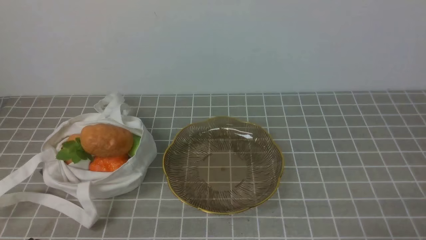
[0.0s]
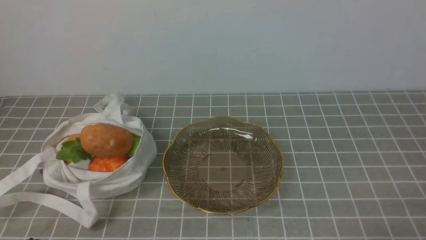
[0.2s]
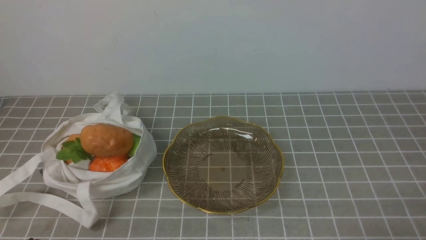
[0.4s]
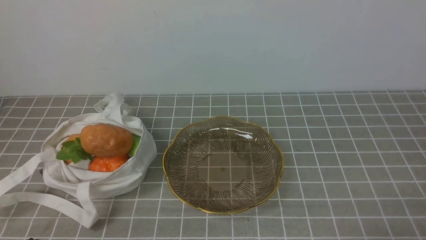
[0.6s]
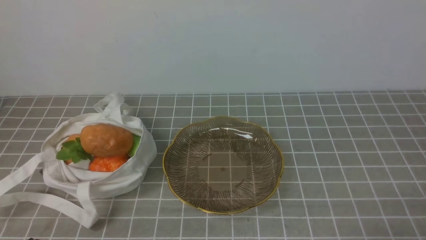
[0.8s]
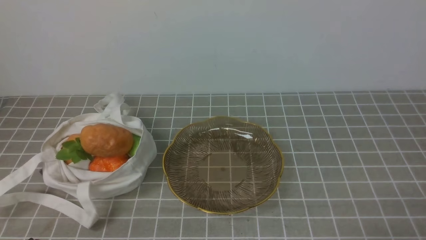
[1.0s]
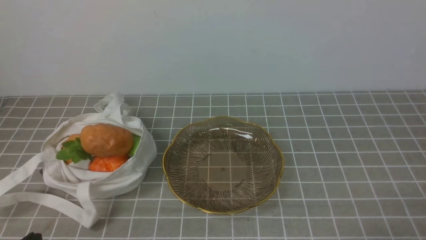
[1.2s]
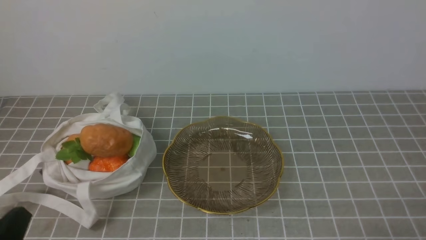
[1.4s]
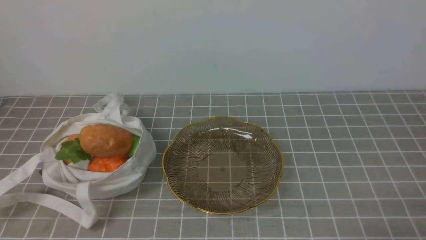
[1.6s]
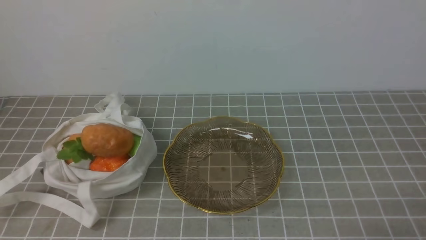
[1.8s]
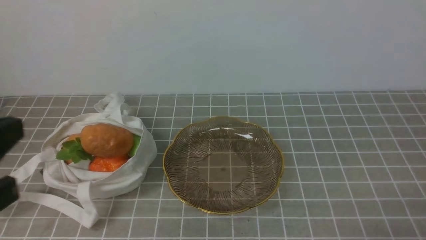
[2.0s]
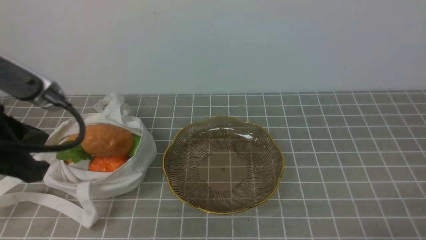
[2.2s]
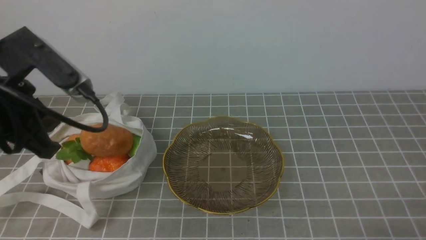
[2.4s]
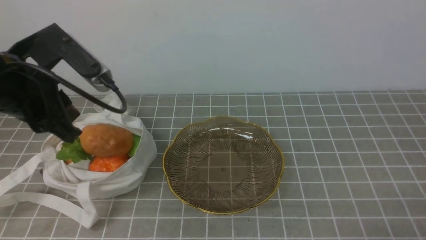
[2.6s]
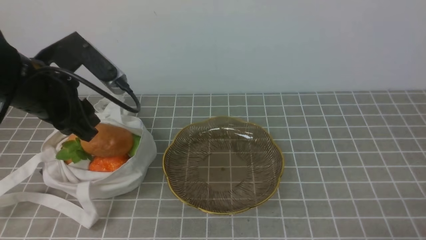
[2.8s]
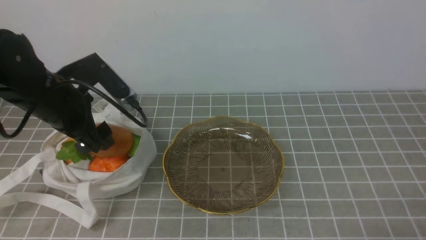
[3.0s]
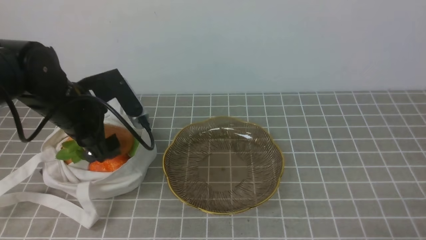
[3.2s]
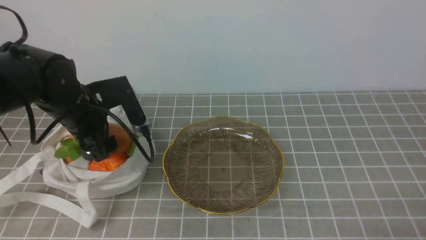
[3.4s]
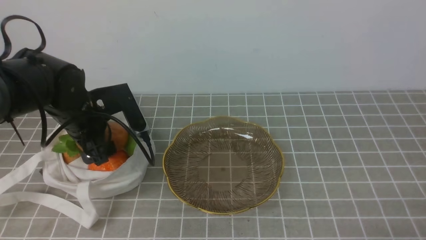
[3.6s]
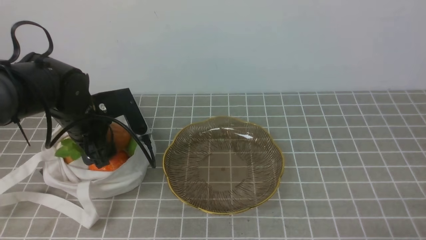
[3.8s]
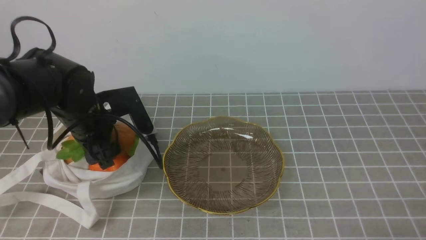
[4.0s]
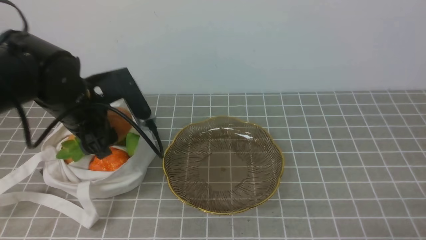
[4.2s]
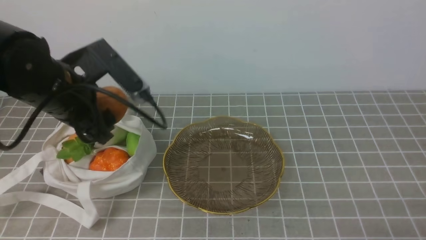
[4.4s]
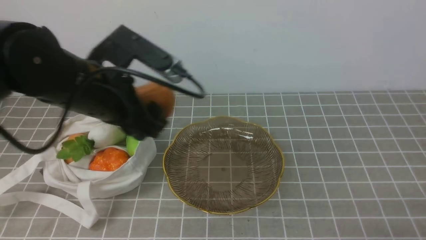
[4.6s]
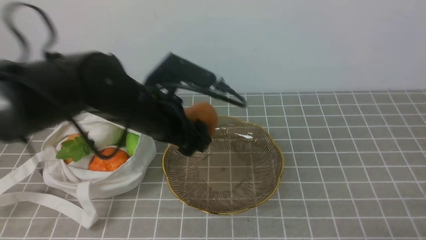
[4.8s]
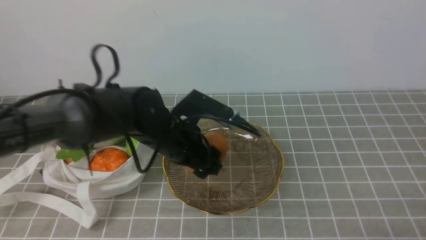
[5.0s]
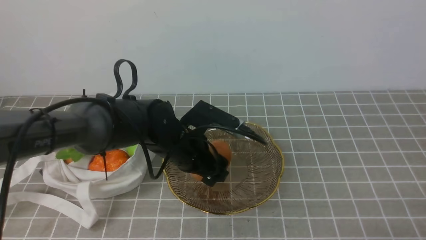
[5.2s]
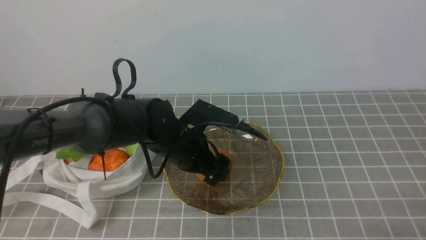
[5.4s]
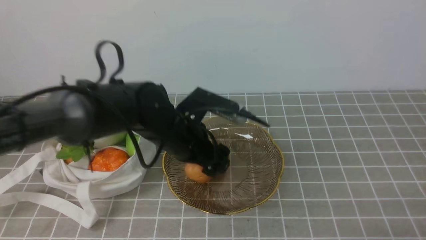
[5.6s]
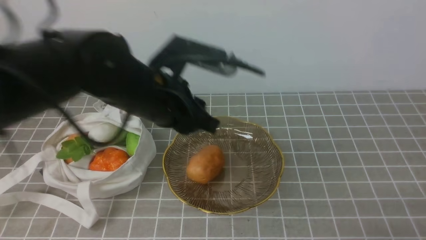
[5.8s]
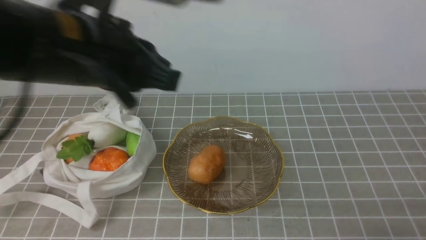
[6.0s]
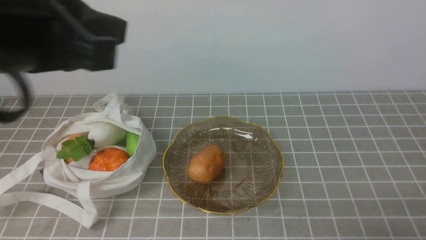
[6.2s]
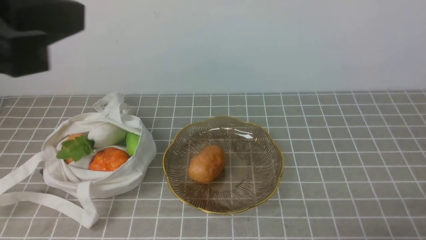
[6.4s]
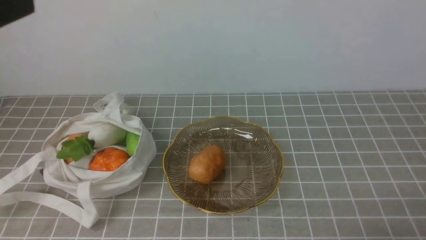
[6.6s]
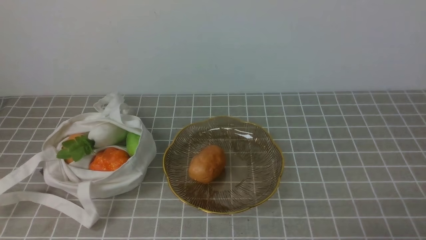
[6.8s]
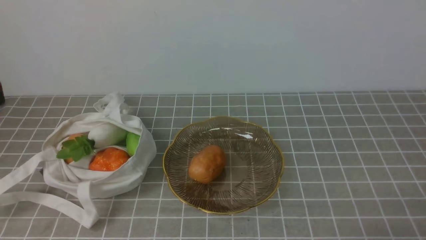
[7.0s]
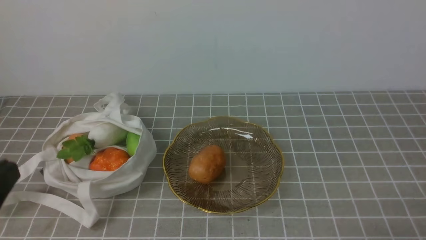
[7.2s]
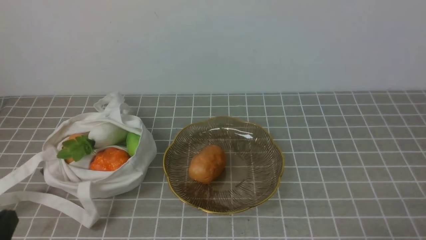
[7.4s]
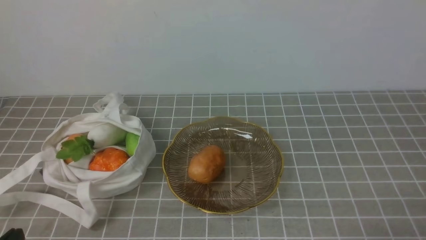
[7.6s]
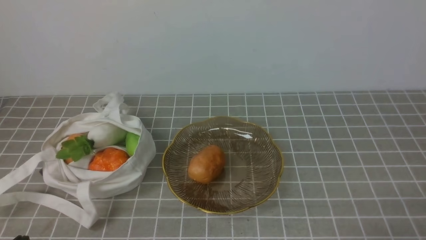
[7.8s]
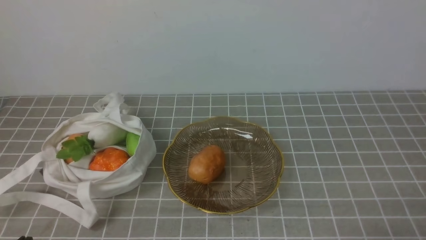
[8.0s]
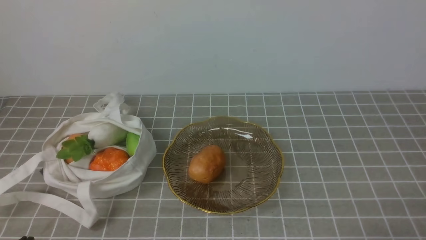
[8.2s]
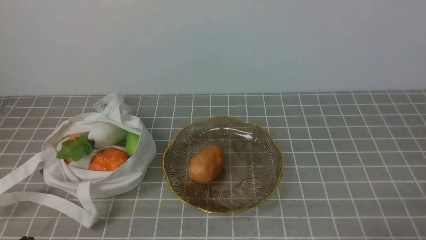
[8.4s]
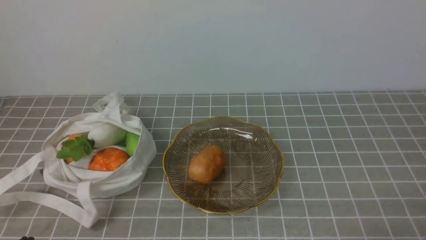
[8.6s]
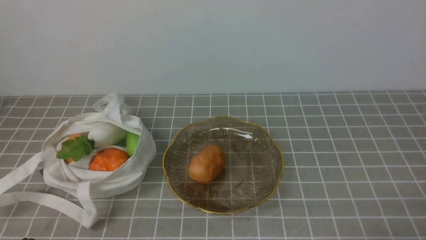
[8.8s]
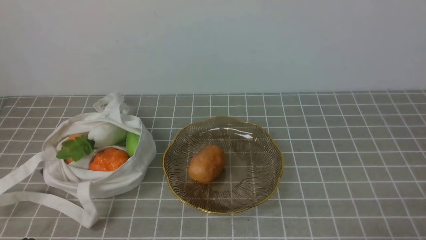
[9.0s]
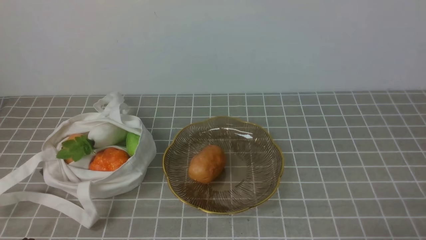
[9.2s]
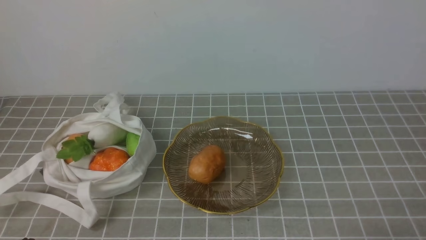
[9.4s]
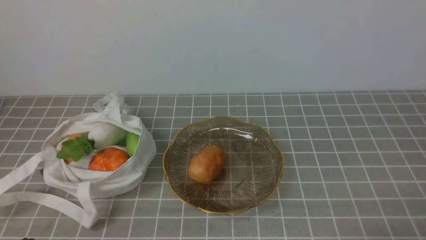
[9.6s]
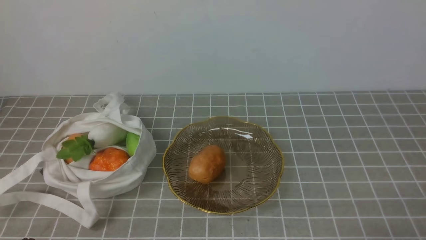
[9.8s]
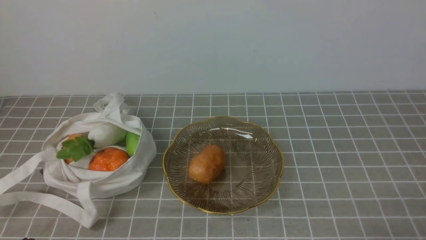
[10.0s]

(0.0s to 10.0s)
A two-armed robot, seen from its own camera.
Task of the whole recording: take vegetables from bag on grey coffee tablecloth place on plate.
Step, 0.0s - 3.8s: Grasp the potato with left gripper.
Step, 4.0s - 5.8s: Place the potato on the plate with left gripper.
1.4s - 2.8s: The left gripper travels forward and upward by about 25 cm.
2.8s - 4.2s: The left gripper shifts about 10 cm downward and forward, and opens its fingers.
4.2s - 5.8s: The left gripper heads to the right, covering approximately 15 cm.
5.8s - 7.2s: The left gripper moves backward, to the left and upward, roughly 30 cm, and closes up.
7.2s - 8.6s: The left gripper goes approximately 20 cm downward.
8.6s - 10.0s: Both grippers stay about where they are.

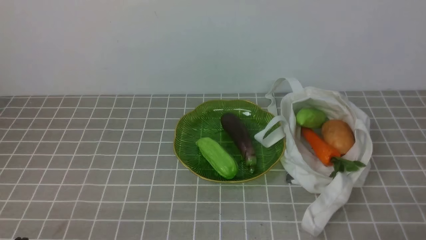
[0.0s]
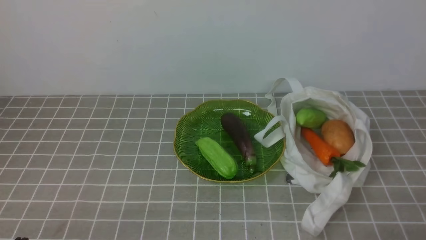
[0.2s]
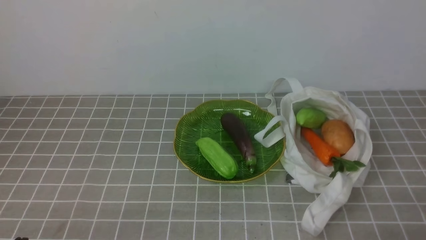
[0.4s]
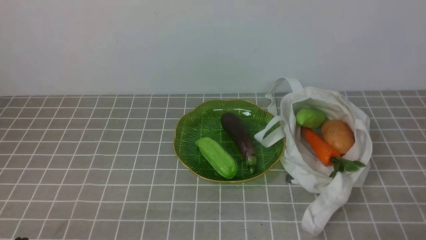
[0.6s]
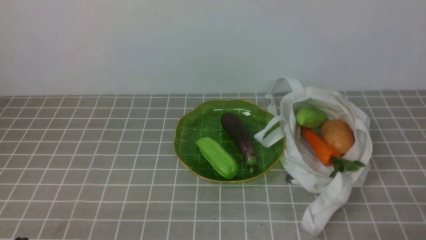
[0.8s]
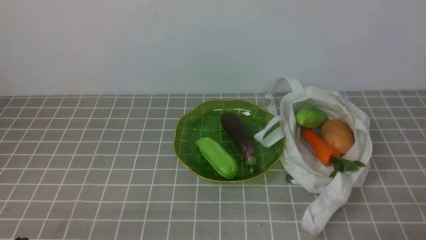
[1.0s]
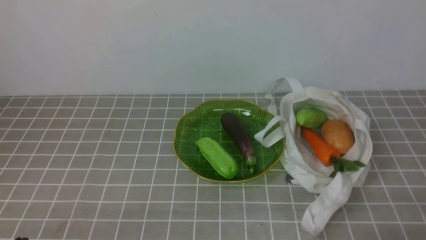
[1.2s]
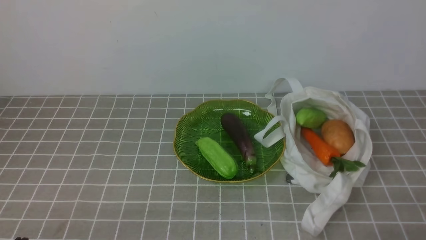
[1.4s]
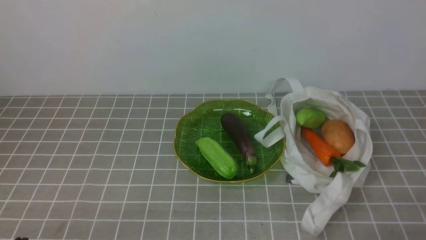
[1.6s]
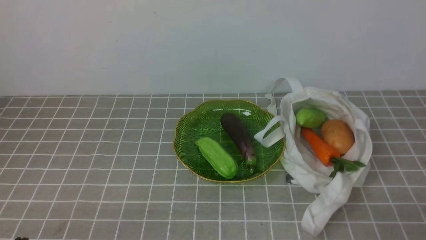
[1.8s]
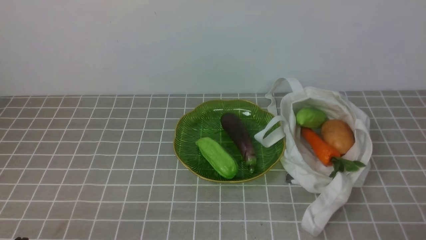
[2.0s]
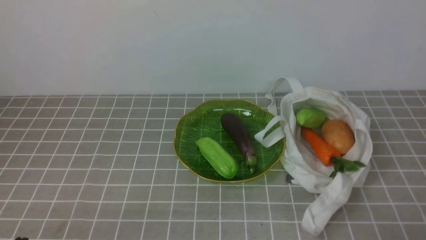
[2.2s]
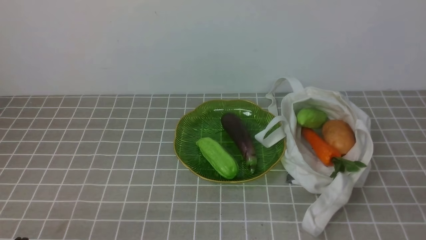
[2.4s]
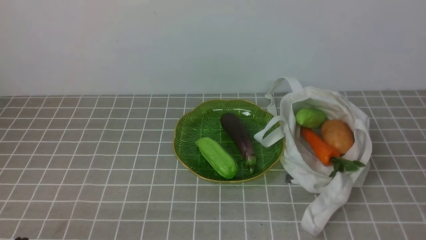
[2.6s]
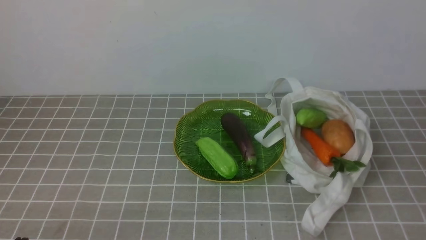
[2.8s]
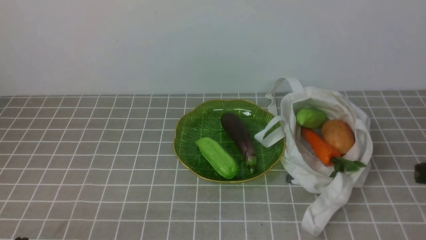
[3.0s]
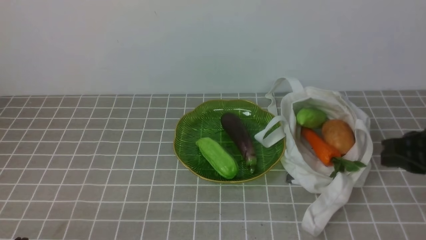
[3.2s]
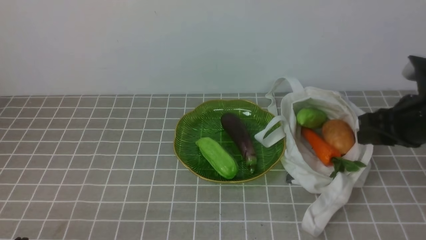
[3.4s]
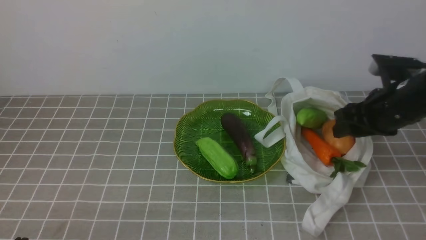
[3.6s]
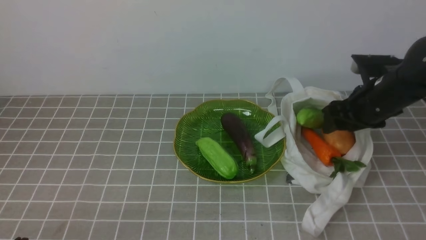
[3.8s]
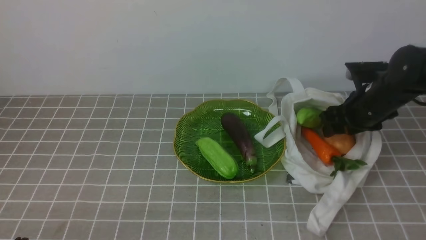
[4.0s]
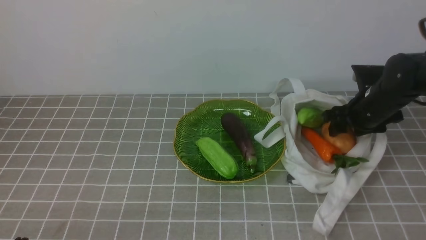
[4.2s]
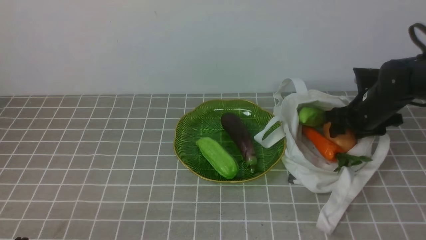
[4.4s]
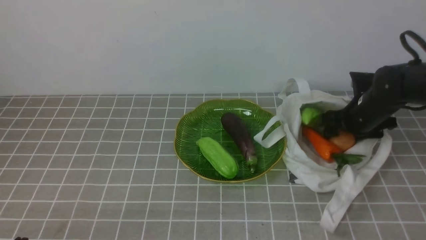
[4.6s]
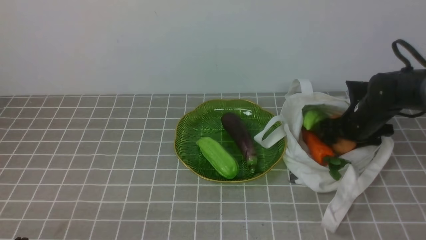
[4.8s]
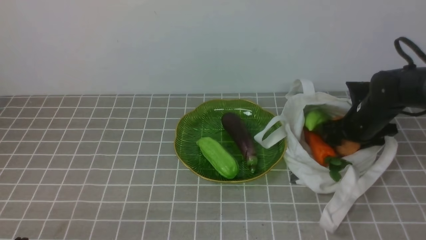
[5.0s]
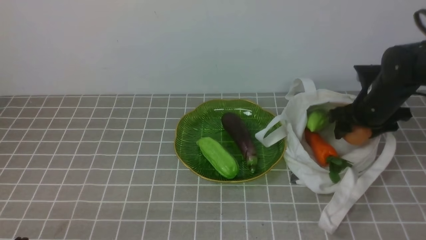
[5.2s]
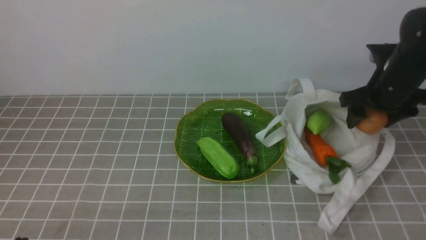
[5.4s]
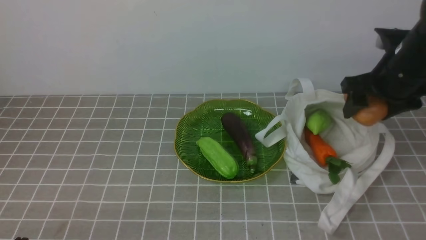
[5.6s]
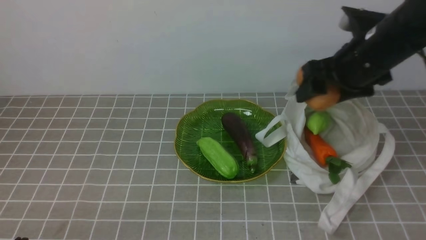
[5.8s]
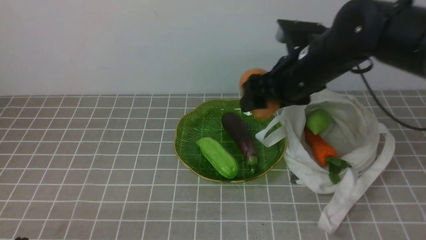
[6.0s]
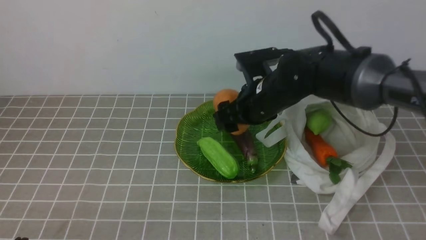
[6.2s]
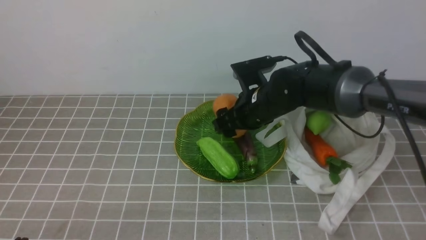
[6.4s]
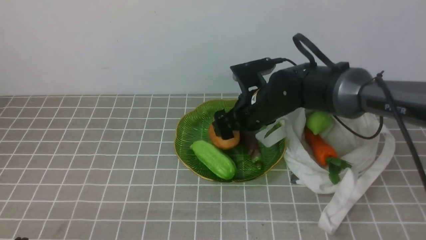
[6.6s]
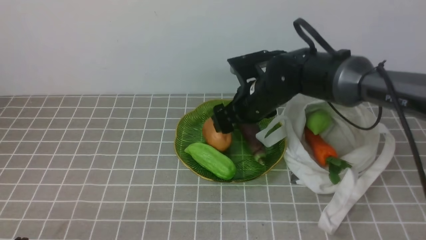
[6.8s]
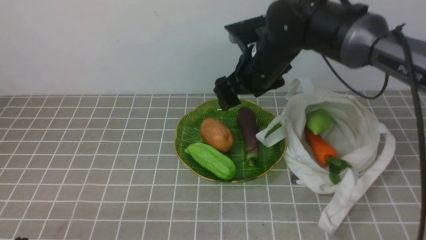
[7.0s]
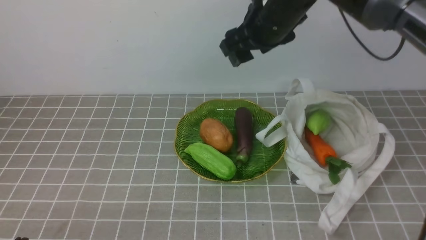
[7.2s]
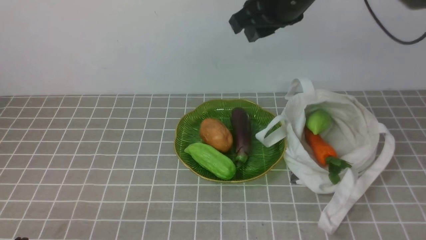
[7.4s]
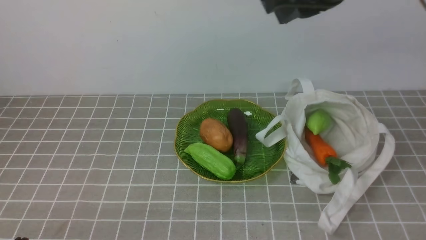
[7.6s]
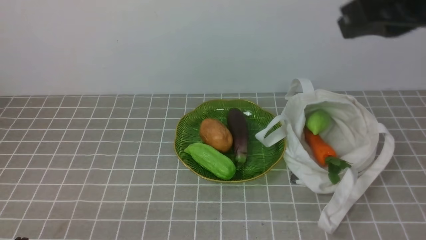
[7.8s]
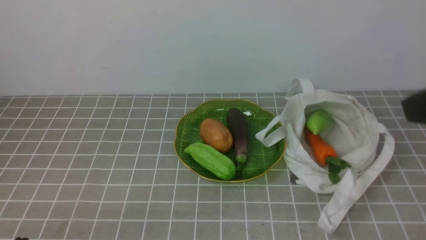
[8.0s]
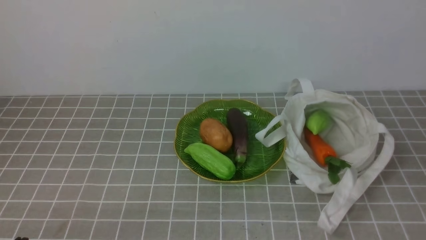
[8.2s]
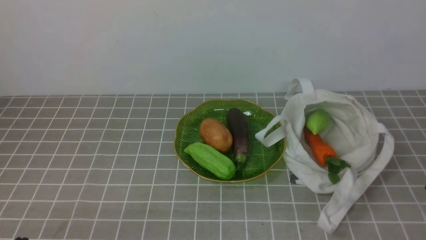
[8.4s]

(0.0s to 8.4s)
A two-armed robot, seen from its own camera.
Task of the whole recording: take vegetables from bag on grey coffee tablecloth place on plate.
Step, 0.0s - 4.8s: Grasp the potato with right gripper.
Step, 5.2s - 7.0s: Place the potato on the plate with right gripper.
0.0s - 1.4s: The two grippers keep their place.
2.8s - 4.2s: The right gripper goes about 30 cm forward and downward, and opens up.
4.2s - 5.6s: The right gripper heads upward, covering some 10 cm.
5.6s - 7.0s: The right gripper moves to the left, some 15 cm.
7.0s - 8.4s: The right gripper goes about 40 cm backward and to the right, and closes its fingers.
